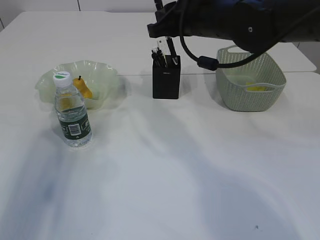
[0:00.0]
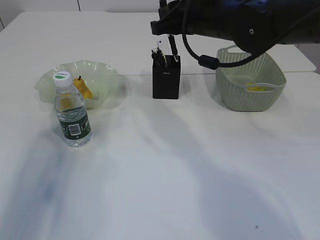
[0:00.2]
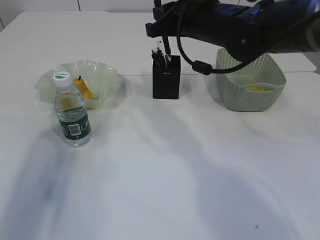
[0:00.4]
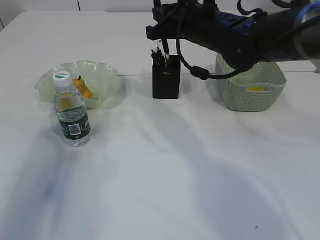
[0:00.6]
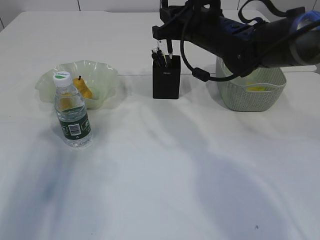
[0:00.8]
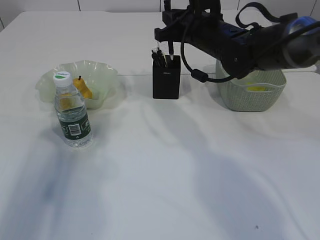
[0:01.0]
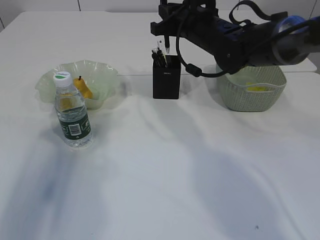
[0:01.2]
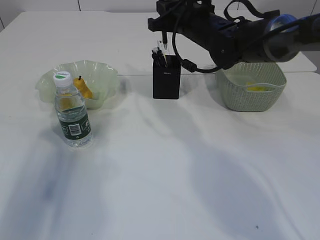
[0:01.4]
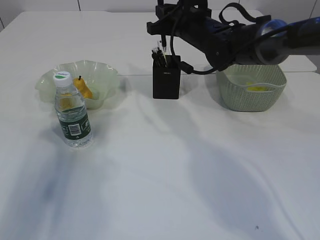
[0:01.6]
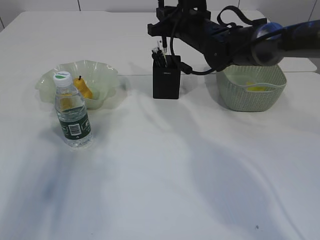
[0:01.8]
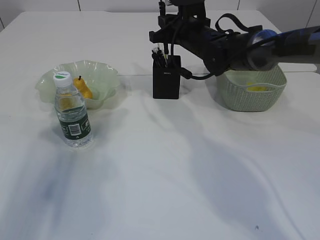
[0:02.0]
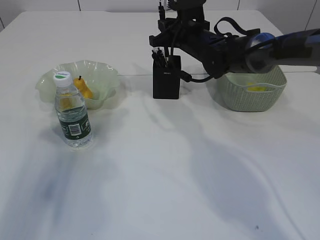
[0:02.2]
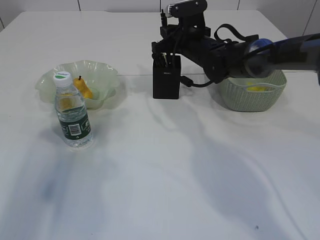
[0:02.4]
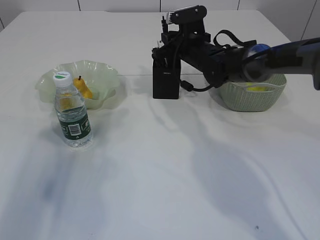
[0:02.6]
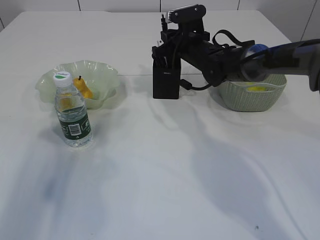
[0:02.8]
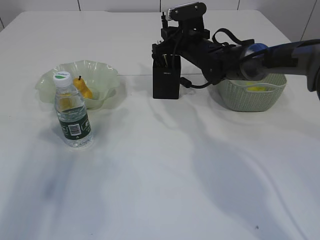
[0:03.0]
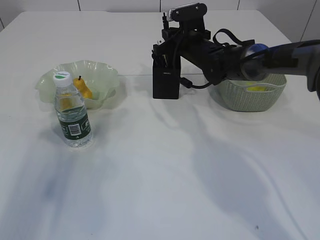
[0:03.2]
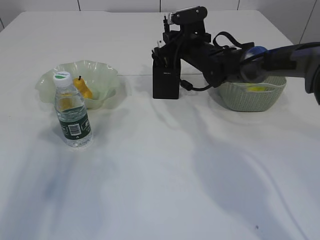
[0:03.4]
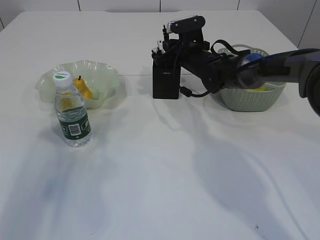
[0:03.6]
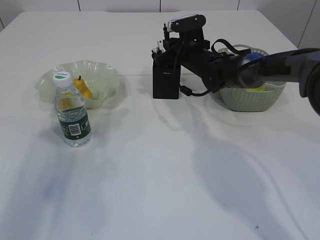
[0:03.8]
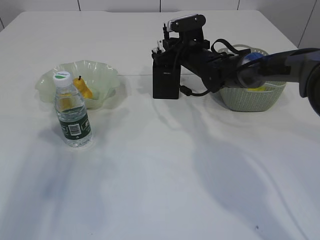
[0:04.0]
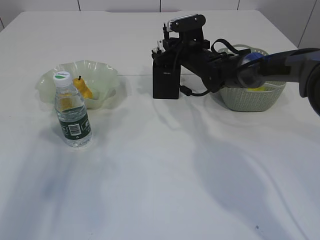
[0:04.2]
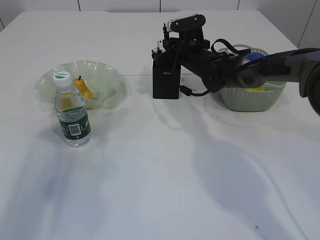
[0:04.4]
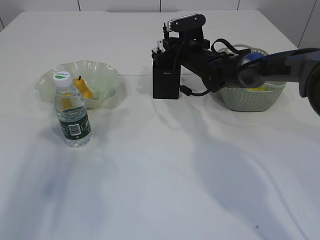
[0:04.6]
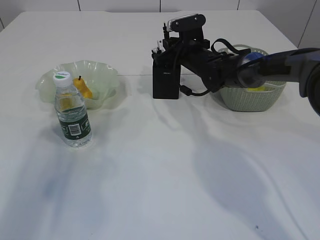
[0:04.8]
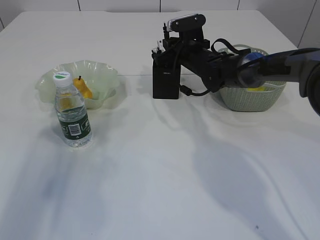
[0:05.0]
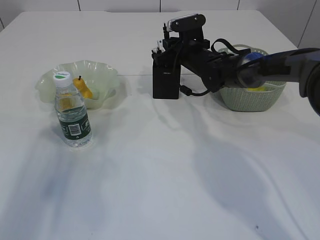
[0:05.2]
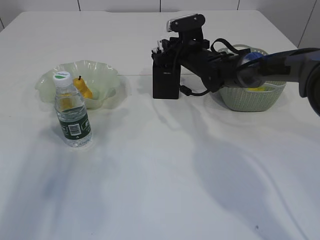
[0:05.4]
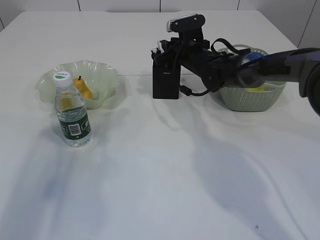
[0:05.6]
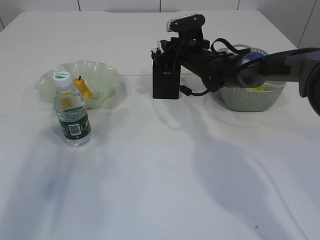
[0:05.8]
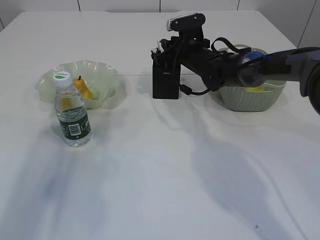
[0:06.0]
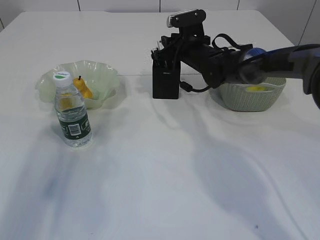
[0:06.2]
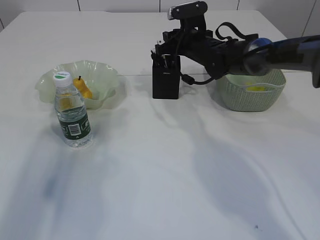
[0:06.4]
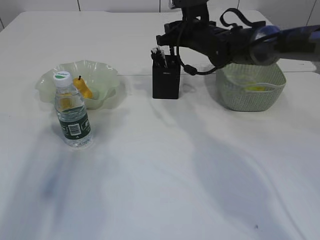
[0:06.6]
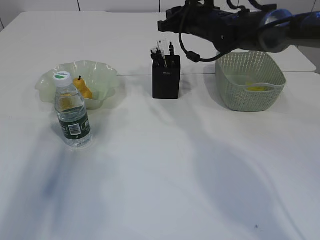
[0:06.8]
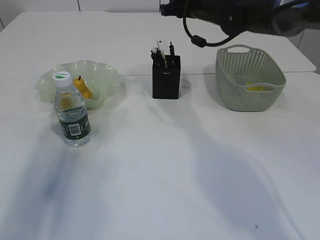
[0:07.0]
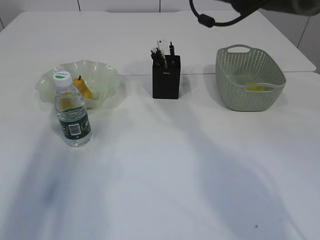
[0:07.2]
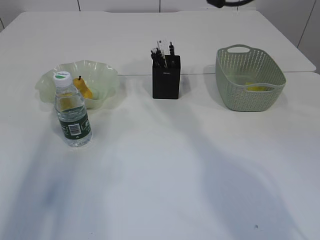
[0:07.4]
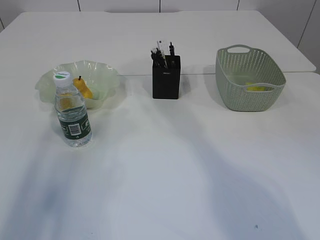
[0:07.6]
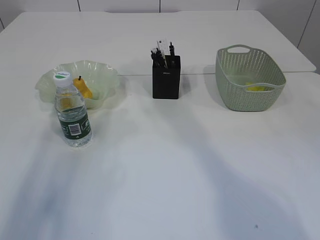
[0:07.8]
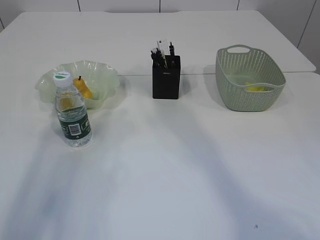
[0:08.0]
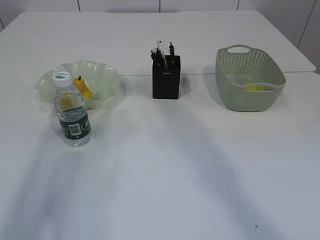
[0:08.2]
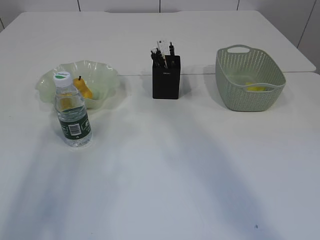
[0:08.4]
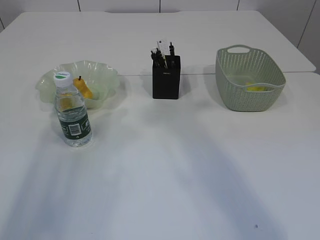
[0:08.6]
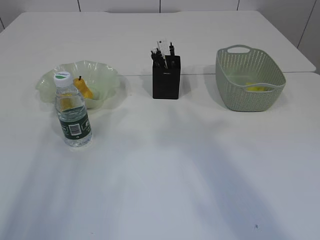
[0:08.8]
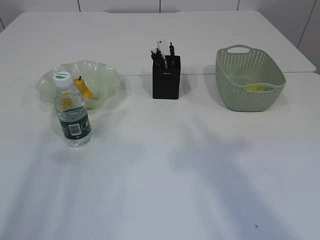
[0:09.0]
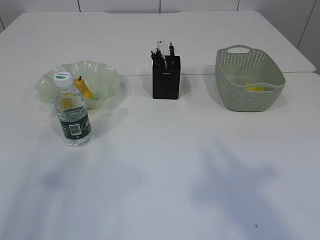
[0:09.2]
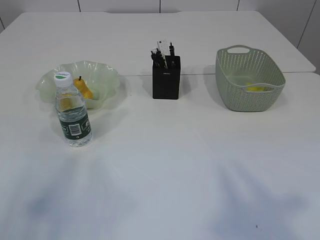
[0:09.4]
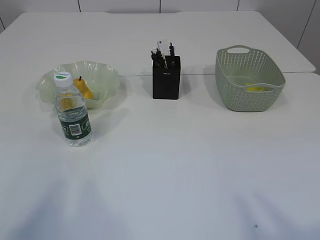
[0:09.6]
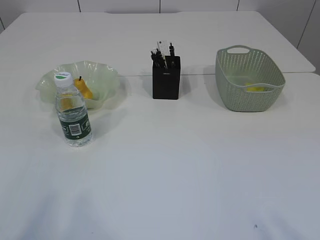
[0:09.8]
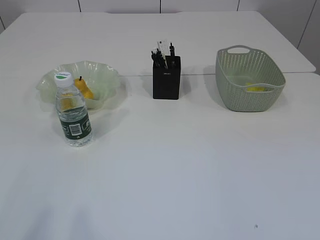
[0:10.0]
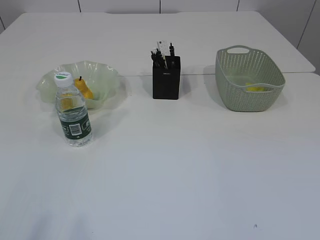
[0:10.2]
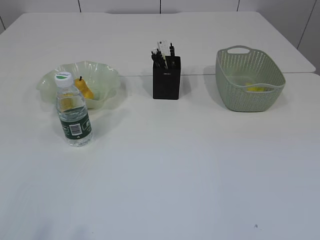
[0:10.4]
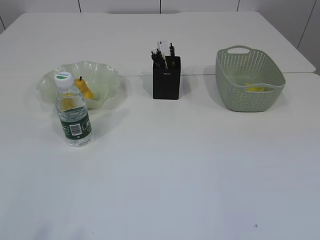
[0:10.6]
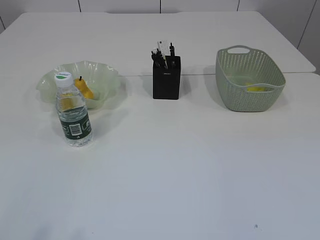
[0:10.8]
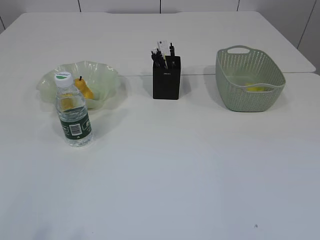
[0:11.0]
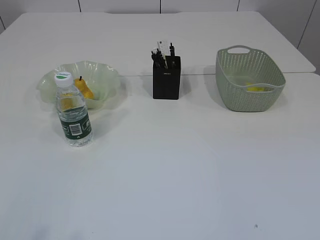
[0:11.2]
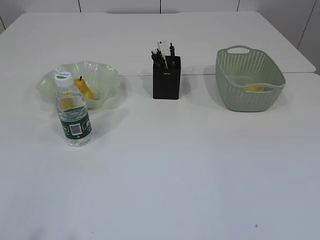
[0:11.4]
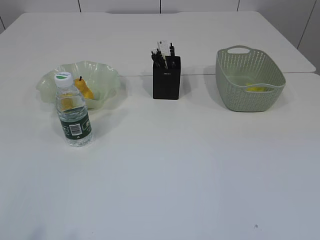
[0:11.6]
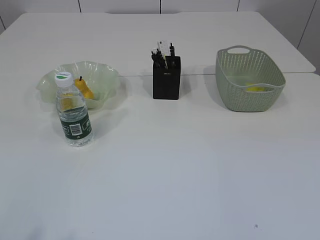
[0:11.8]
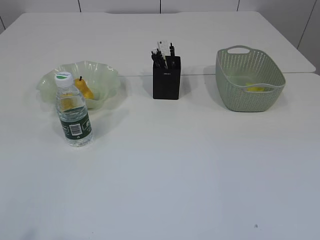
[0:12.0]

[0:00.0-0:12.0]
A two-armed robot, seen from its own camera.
Step, 0:00.0 to 0:07.0: Place the pen into the pen holder.
0:00.0 to 0:01.6: The right gripper heads forward and downward, covering about 10 cm.
0:01.6 to 0:03.0: The right gripper heads downward, covering some 5 cm.
0:03.0 to 0:04.4: The grippers stay close to where they were, moving slightly.
0:04.4 to 0:06.0: Neither gripper changes place.
0:06.0 to 0:07.6: The right gripper heads upward, covering roughly 25 cm.
0:07.6 to 0:09.0: The right gripper moves backward, about 30 cm.
0:09.0 to 0:10.4: The left gripper goes some 15 cm backward, while the right gripper goes roughly 25 cm backward and downward.

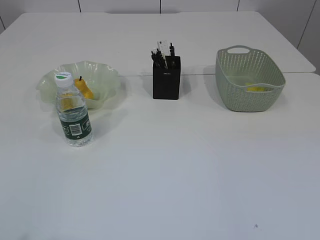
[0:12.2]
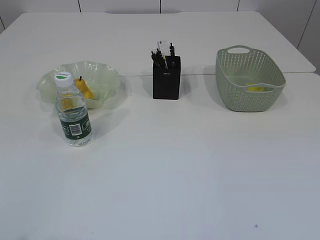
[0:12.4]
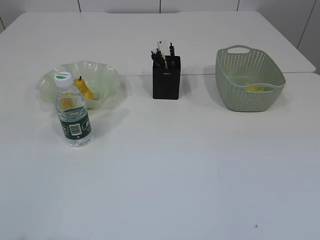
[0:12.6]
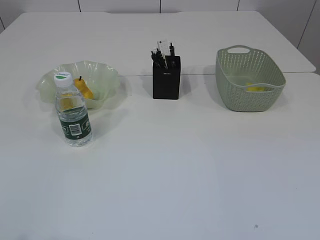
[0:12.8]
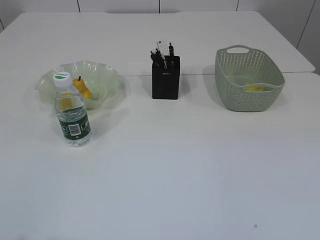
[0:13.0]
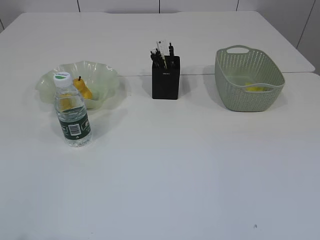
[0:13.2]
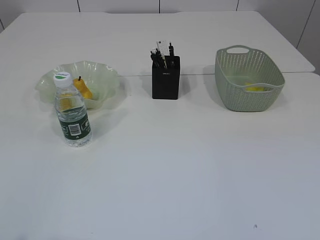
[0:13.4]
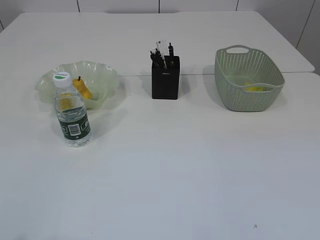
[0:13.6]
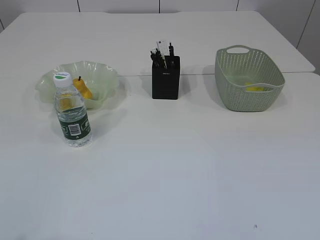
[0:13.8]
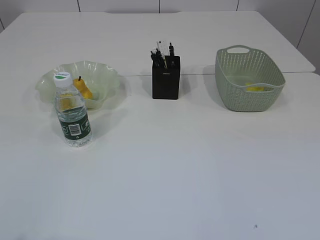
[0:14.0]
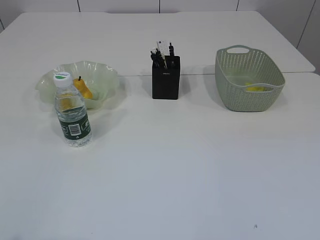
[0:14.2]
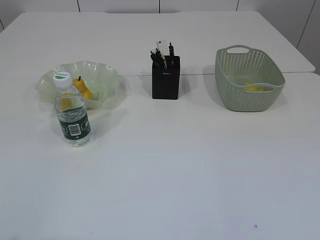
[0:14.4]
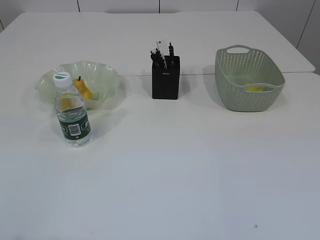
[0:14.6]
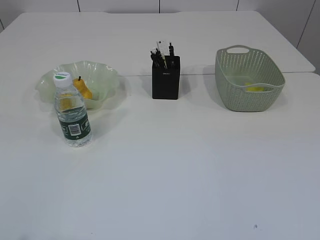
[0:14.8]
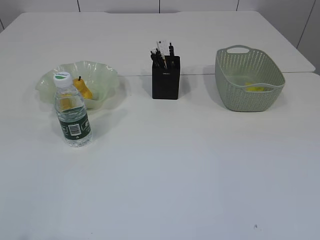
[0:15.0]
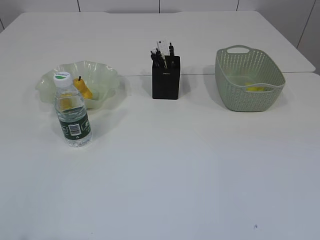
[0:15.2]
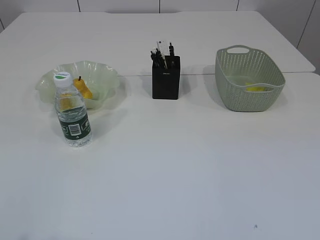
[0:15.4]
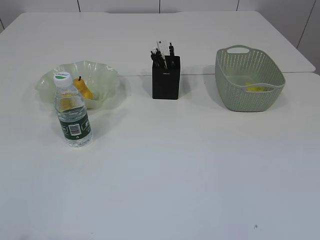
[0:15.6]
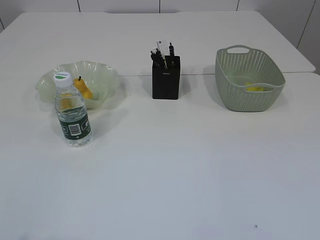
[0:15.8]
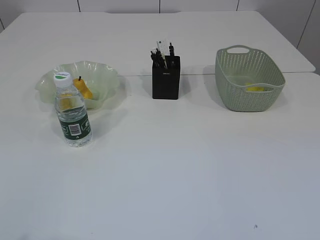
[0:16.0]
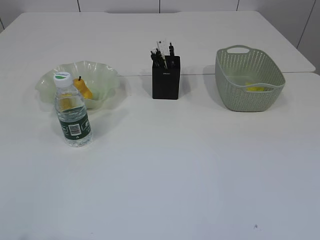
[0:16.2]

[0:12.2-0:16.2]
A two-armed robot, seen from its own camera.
0:14.8 to 0:16.2: Both grippers stay about where they are.

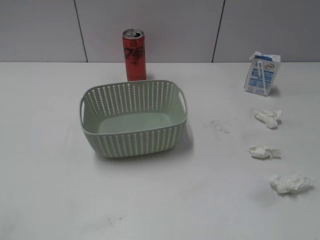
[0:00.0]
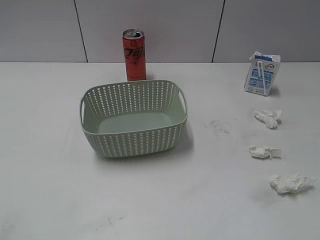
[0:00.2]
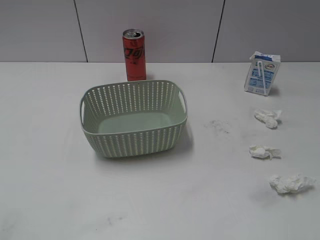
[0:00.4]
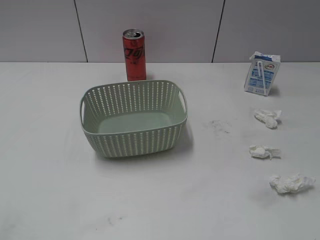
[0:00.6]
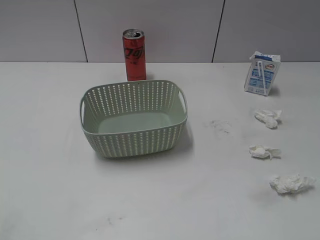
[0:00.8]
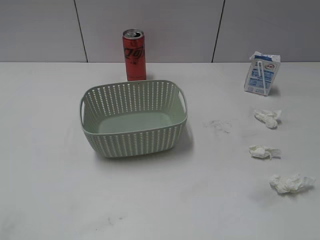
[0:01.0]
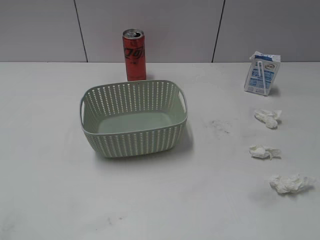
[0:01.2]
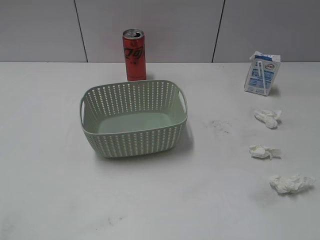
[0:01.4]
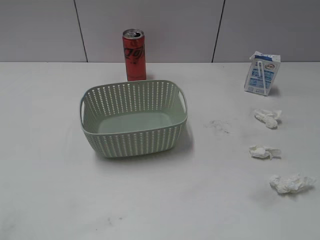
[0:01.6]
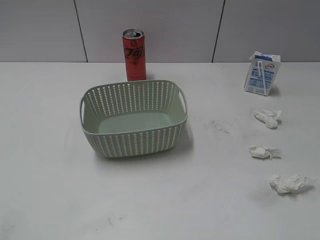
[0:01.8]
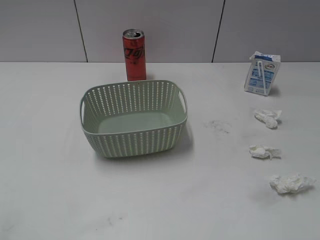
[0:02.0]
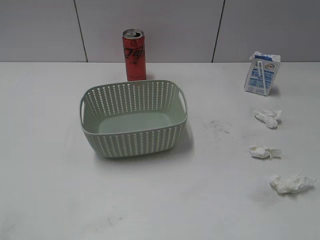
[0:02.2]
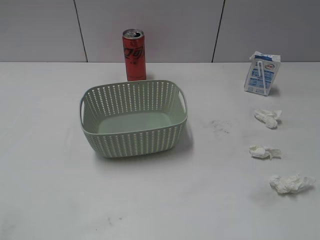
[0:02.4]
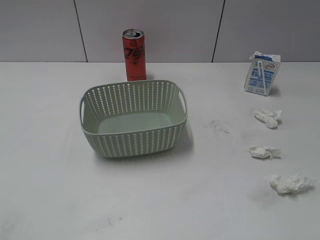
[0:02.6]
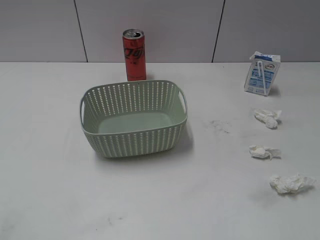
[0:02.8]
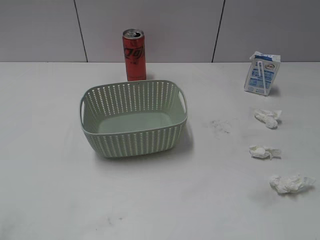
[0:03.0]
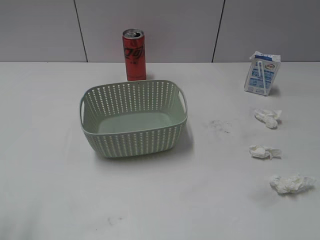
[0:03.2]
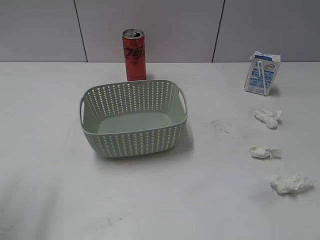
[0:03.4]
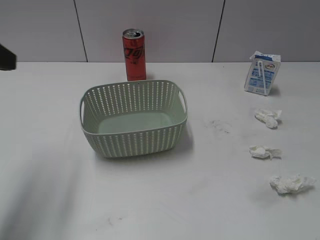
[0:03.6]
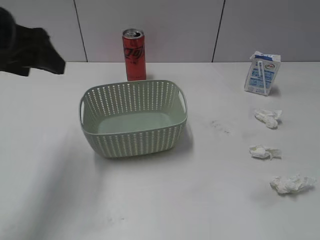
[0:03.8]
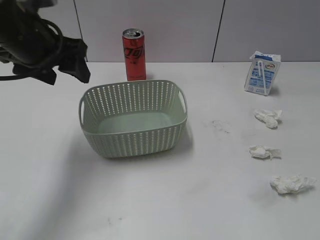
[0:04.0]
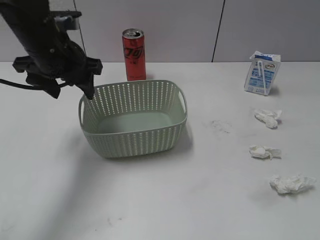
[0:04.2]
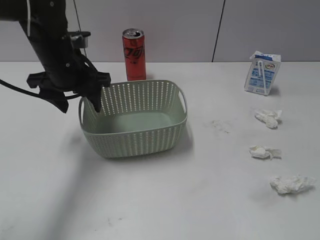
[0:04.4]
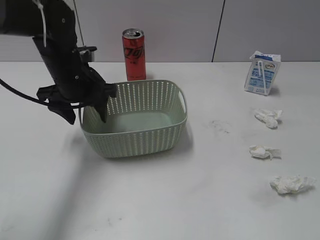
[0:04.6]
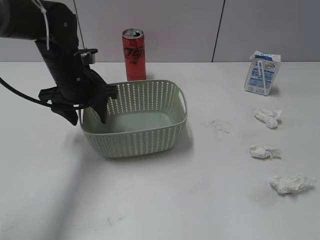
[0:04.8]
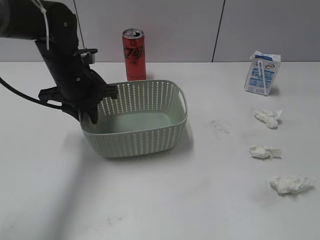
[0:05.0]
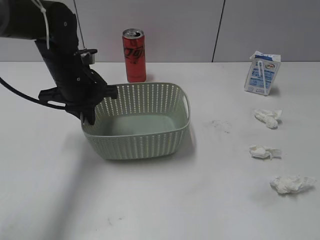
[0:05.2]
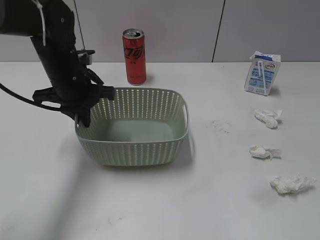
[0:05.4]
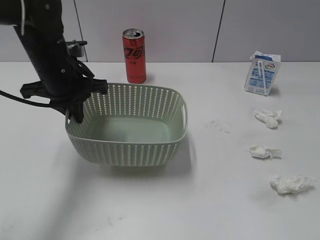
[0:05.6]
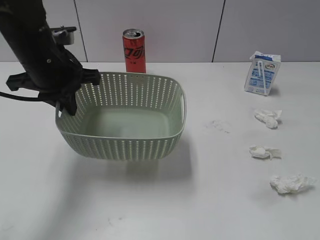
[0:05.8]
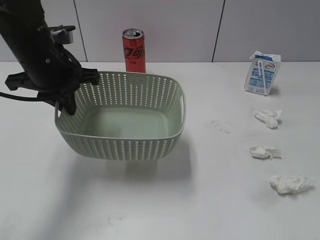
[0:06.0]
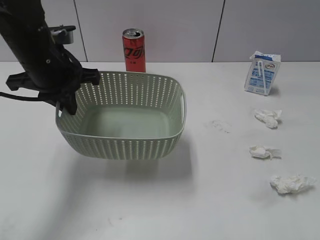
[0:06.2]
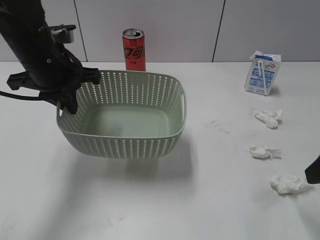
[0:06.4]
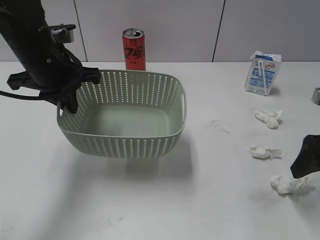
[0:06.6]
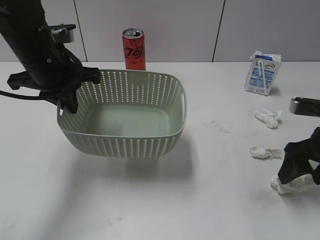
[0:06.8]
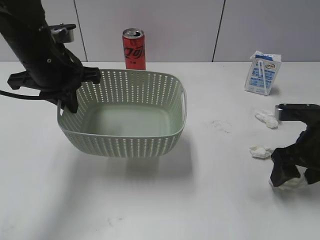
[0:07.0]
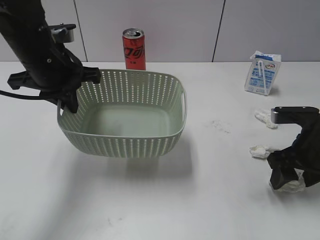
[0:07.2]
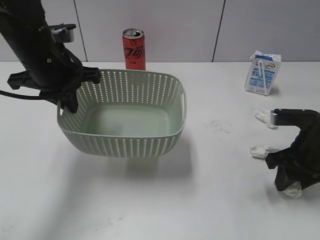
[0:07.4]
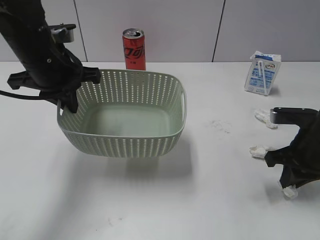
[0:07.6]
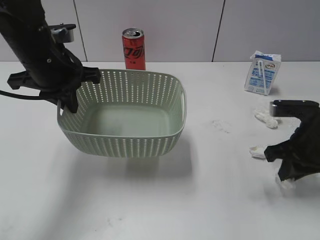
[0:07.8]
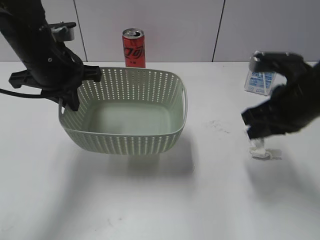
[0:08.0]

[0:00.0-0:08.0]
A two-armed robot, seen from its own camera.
Step, 0:02.2 to 0:05.2: Grasp the basket with left gripper.
Step, 0:05.4 to 0:06.0: Lift the basket with left gripper.
Step, 0:06.2 to 0:07.6: Grasp the waste paper with right gripper.
0:03.2 to 0:04.8: The left gripper shifts some 35 cm forward, to the right and downward.
0:04.8 to 0:06.4: The right gripper goes roughly 20 cm forward, while the left gripper moves upward, approximately 5 cm, and closes up.
0:06.4 to 0:08.0: The right gripper shifts about 10 cm to the left and forward, goes downward and returns, some 10 cm each way, and closes up.
